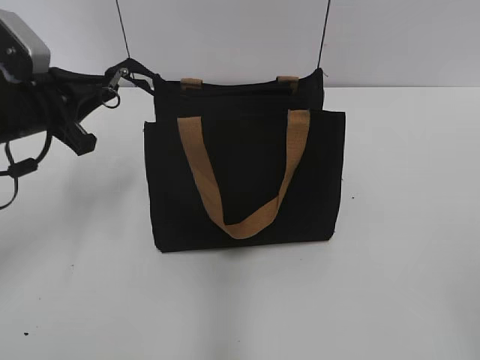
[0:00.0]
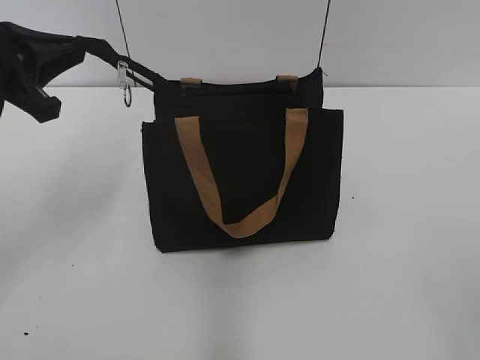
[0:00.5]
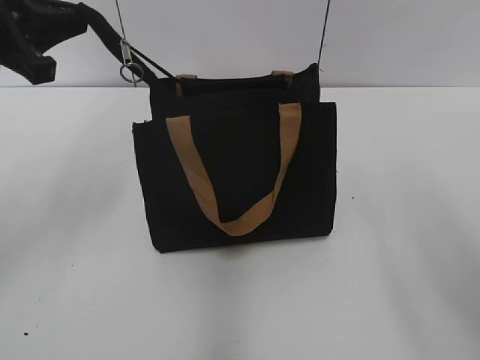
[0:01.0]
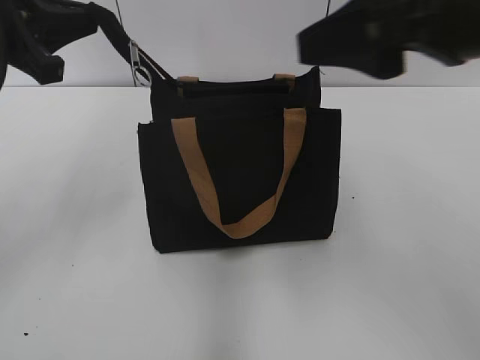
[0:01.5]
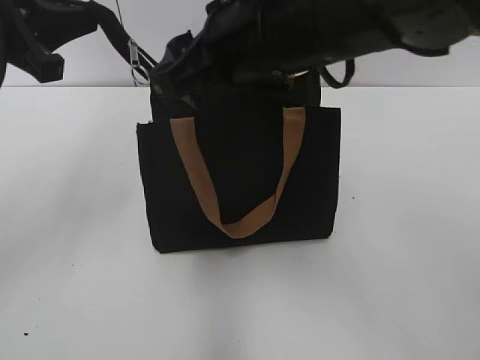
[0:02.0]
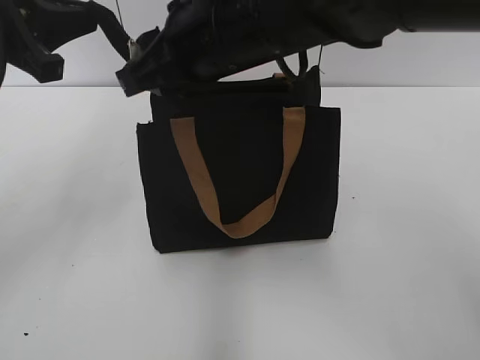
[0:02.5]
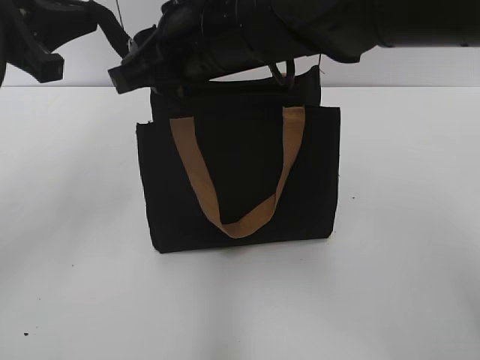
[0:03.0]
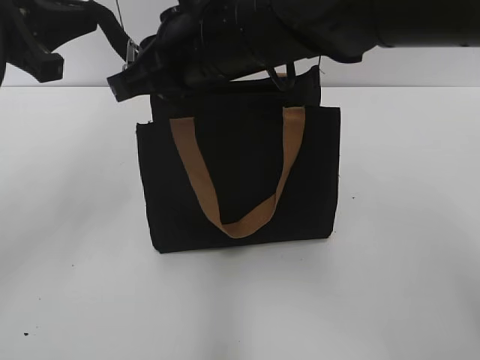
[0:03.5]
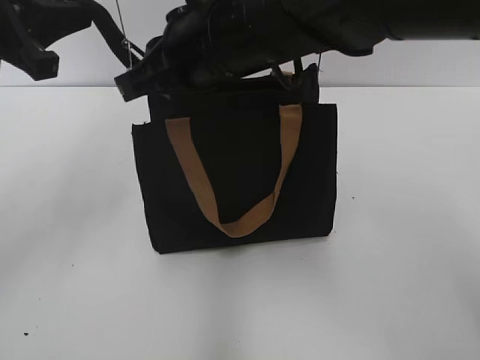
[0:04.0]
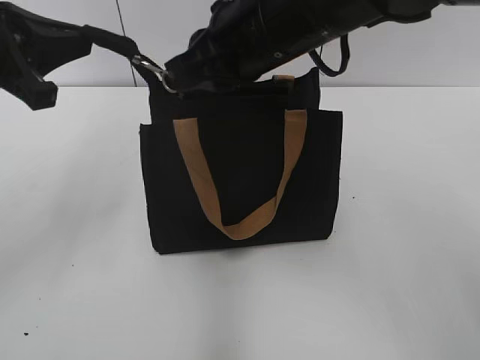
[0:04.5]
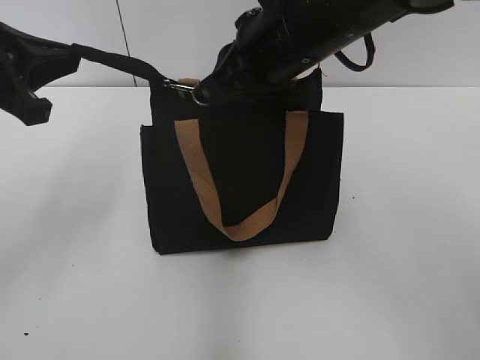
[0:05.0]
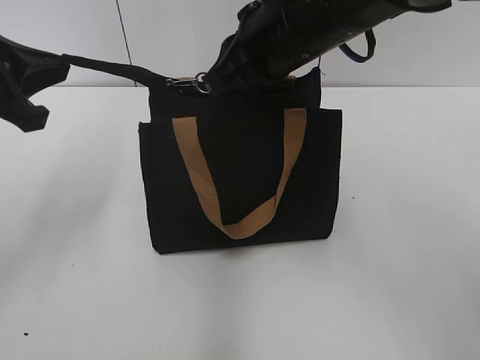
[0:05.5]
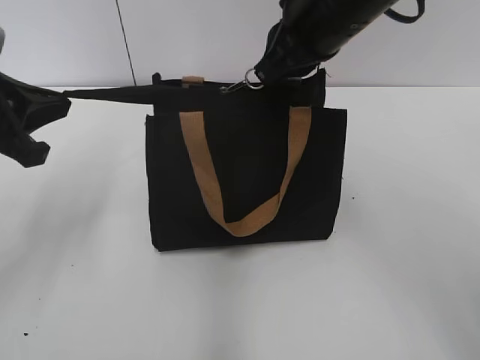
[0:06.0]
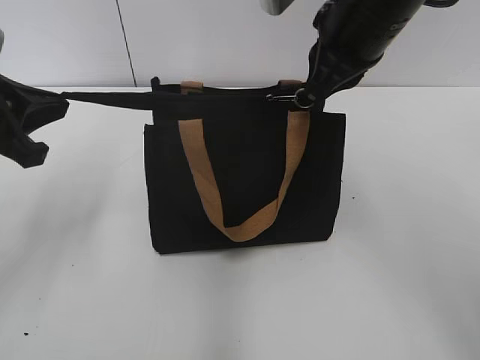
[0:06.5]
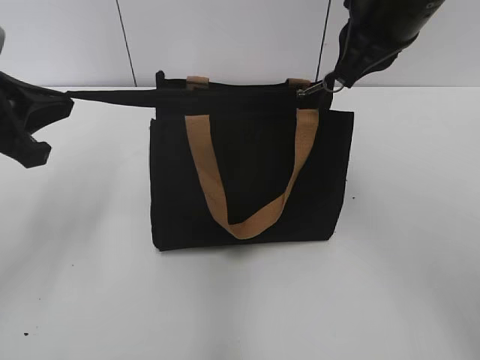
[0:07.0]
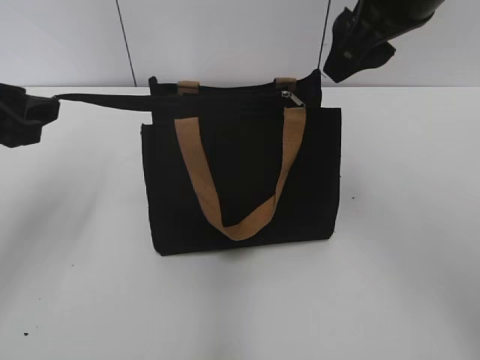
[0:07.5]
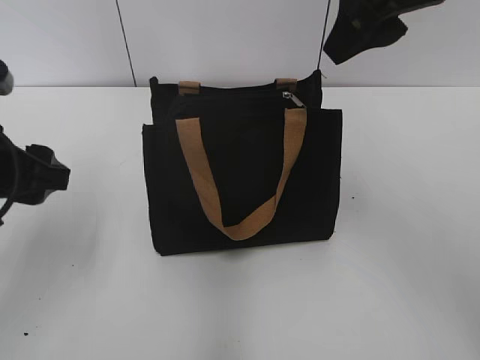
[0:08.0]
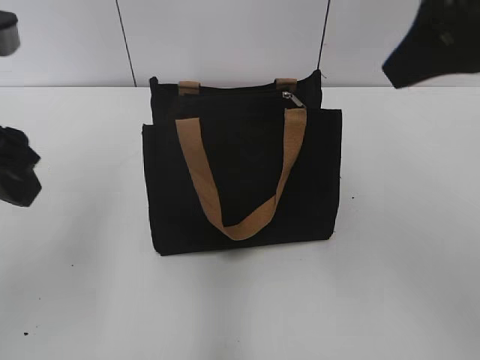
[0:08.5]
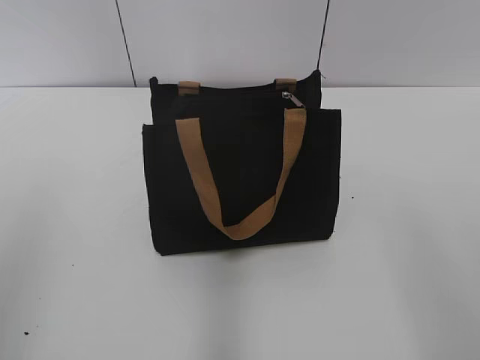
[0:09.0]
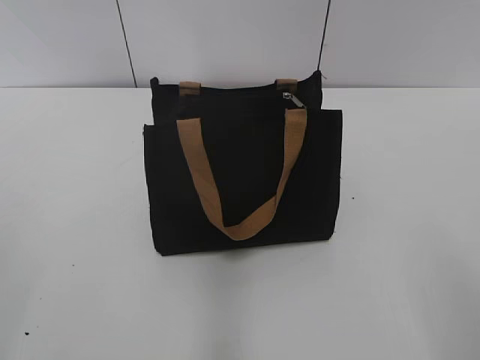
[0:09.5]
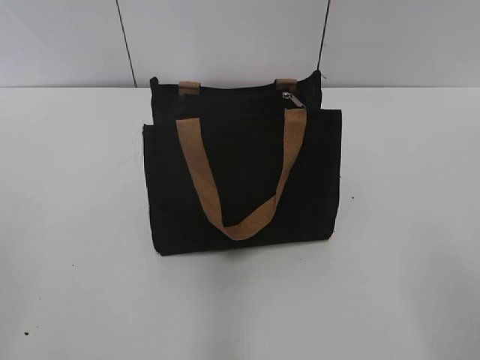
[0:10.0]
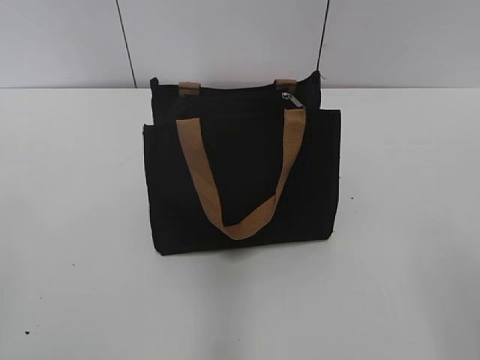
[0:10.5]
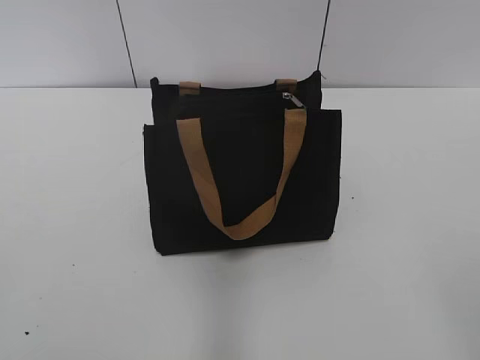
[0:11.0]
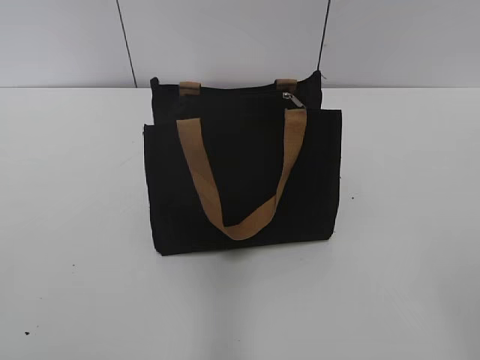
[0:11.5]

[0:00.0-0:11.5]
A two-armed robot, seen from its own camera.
Step, 0:00.0 to 0:07.0: Zip up the bag with your right hand.
0:00.0 to 0:02.0: The left gripper is displaced upward by approximately 10 cm, while the right gripper shifts approximately 35 cm forward and to the left.
0:02.0 to 0:04.0: The right gripper closes up.
0:04.0 to 0:06.0: The right gripper is displaced to the right by about 10 cm; the left gripper travels downward by about 5 cm.
0:06.0 to 0:07.5: The right gripper moves about 5 cm, and opens its fingers; the left gripper opens up.
0:07.5 to 0:09.5: The right gripper shifts about 35 cm backward and to the right. Meanwhile the left gripper travels backward by approximately 20 cm.
